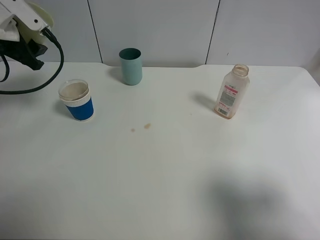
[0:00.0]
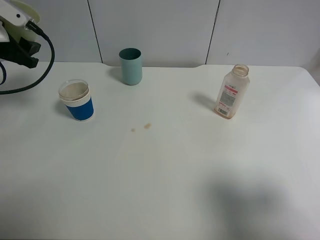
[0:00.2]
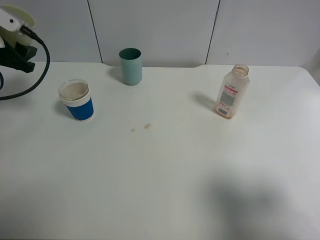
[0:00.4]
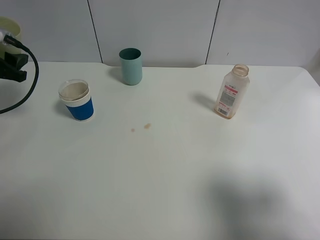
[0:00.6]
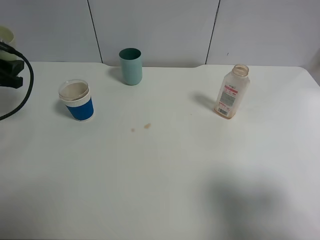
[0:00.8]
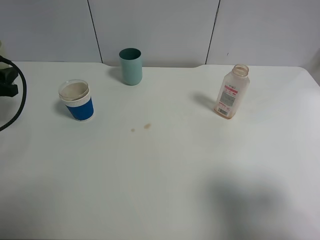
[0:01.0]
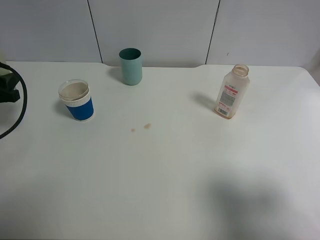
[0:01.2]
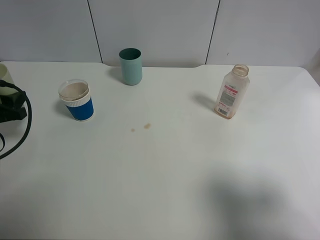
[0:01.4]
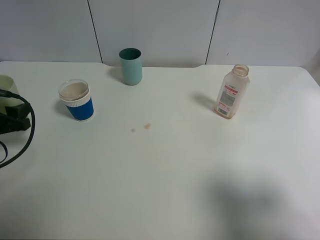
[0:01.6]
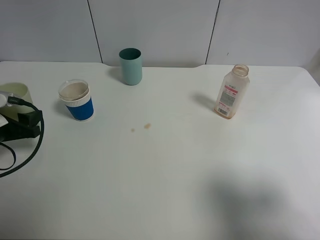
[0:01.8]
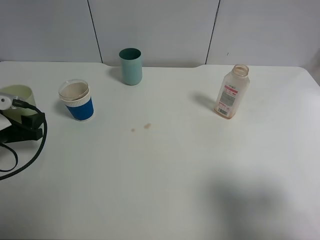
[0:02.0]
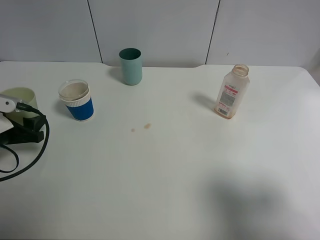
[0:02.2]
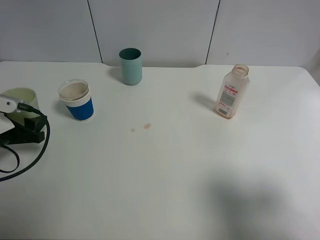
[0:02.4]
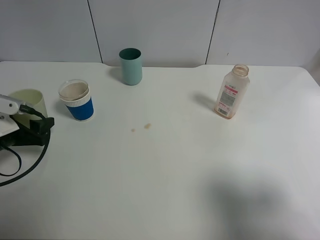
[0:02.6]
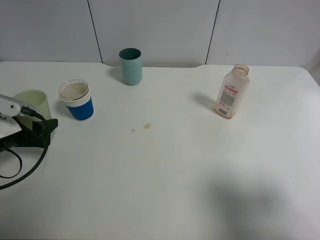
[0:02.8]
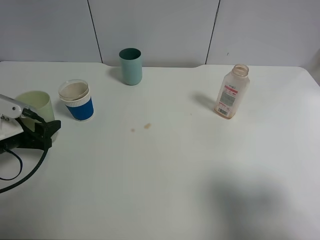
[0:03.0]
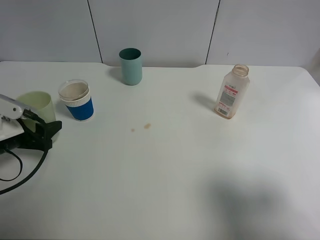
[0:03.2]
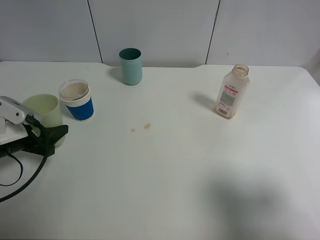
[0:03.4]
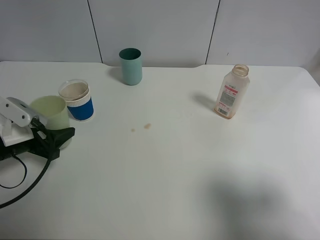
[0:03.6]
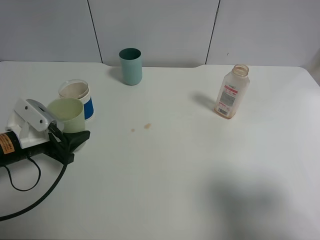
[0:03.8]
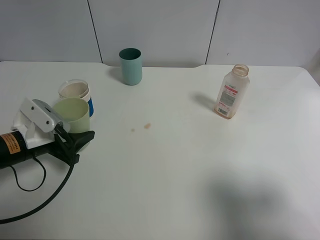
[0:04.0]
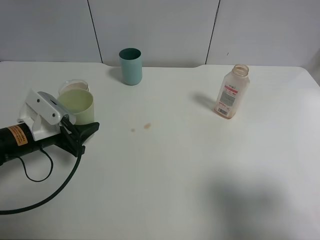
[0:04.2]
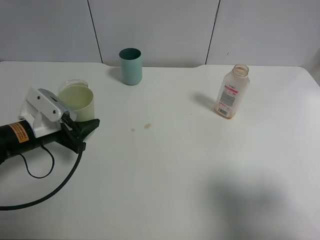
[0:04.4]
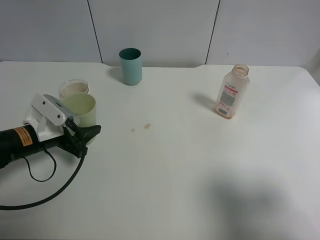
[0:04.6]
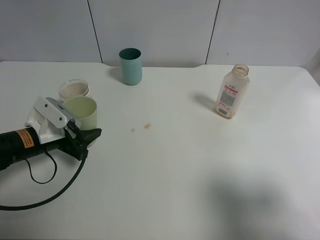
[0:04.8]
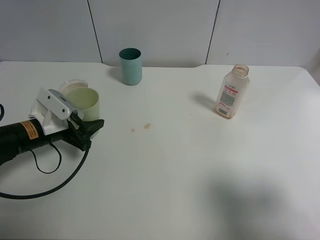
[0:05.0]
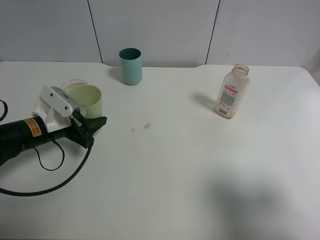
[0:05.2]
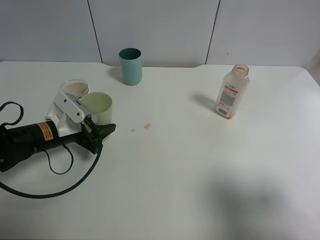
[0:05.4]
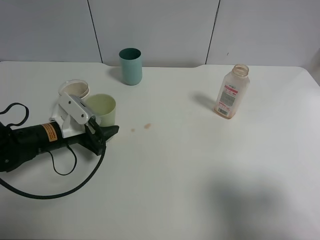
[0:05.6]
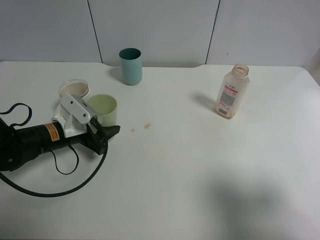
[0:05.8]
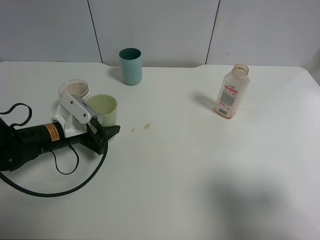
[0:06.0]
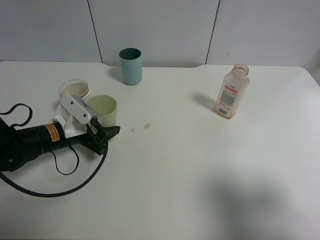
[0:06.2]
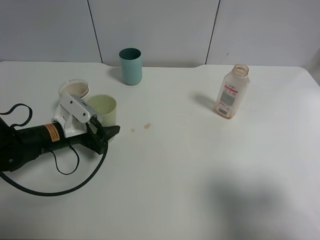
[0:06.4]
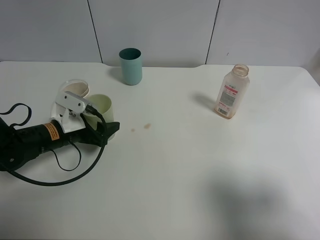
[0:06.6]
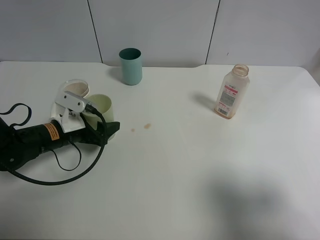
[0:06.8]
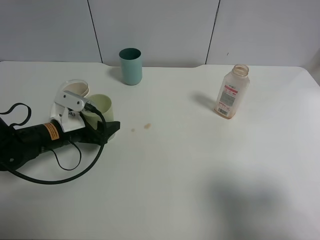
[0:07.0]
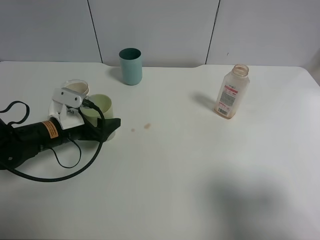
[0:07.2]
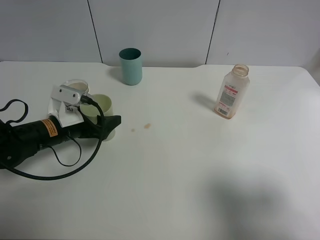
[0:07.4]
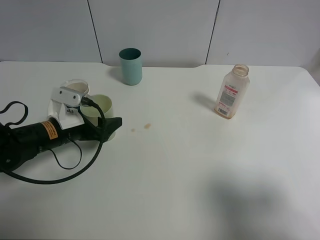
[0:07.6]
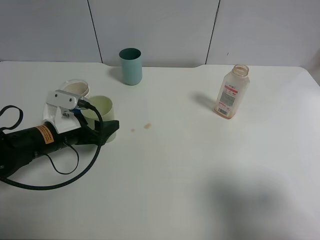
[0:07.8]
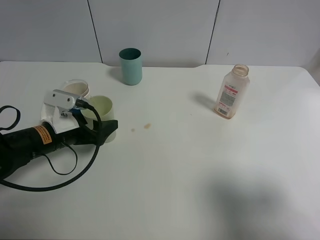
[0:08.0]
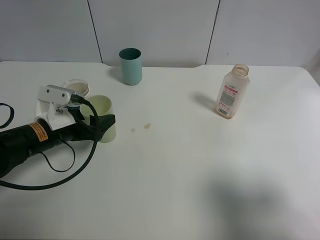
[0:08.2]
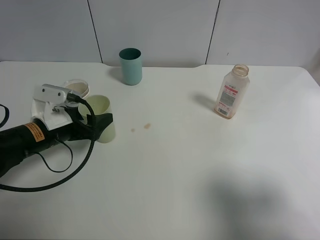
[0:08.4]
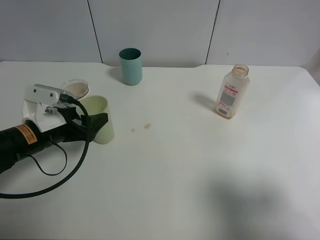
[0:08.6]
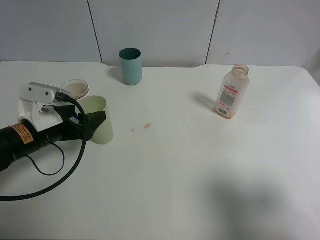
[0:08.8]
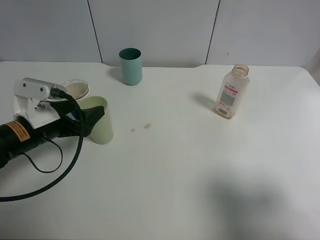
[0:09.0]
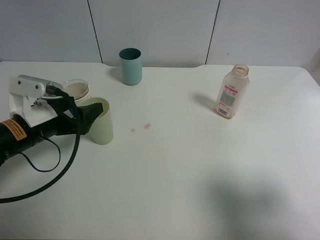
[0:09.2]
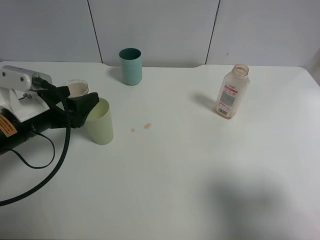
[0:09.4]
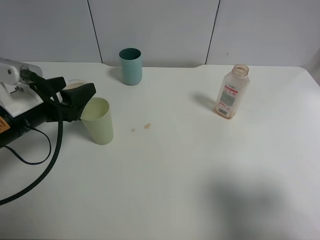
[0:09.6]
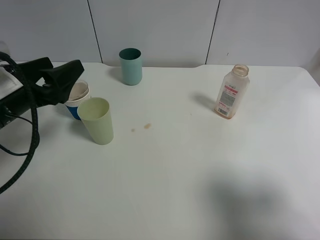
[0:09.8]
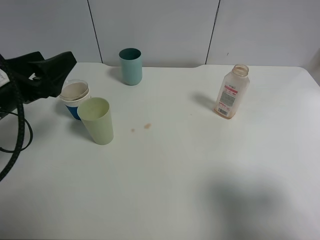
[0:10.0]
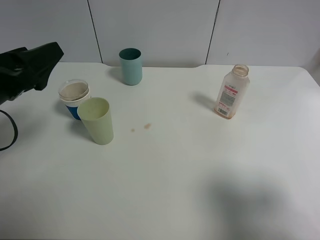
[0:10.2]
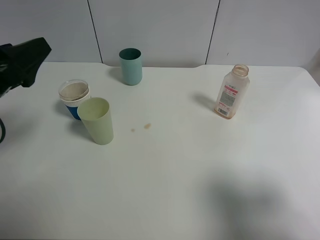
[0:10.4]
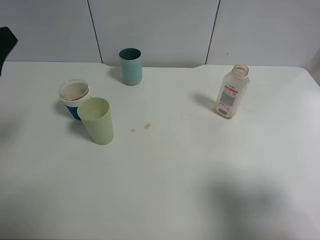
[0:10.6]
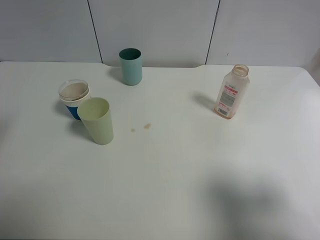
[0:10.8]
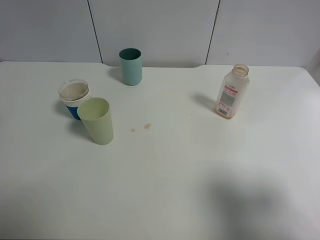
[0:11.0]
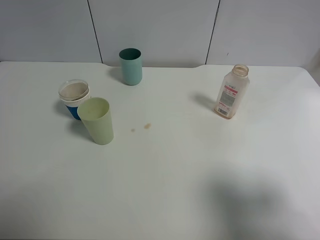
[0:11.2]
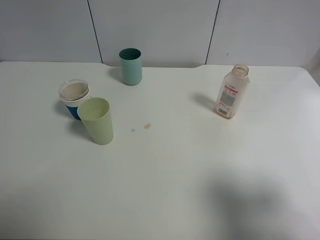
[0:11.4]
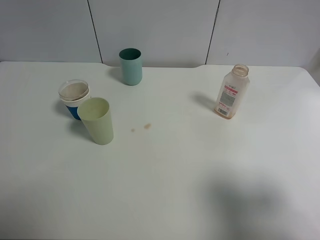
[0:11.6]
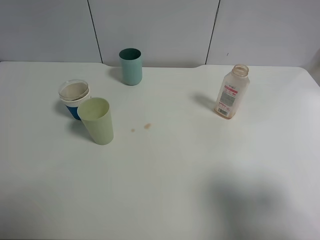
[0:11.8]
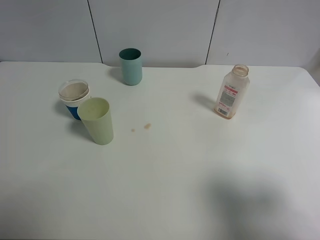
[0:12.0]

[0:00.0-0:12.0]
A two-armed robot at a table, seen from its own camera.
Task of the whole recording: use a clamp to hold the bottle of the drink, pour the beverage into a random cup, then clamp the cup containing the drink and pour the drink into another random cup.
Step, 0:00.0 to 0:09.2: Place the green plastic cup on the table with left gripper.
0:00.0 to 0:01.6: The left gripper goes roughly 20 cm downward and backward.
0:01.6 to 0:03.0: The grippers make only small movements.
0:03.0 to 0:04.4: The left gripper shifts approximately 5 cm to the right.
0:04.4 to 0:06.0: The left gripper shifts by some 5 cm.
0:06.0 to 0:07.6: The left gripper opens up.
0:07.6 to 0:09.0: The left gripper ends up about 5 cm from where it was.
0:09.0 to 0:10.4: The left gripper moves upward, roughly 10 cm.
0:10.4 to 0:12.0: The left gripper goes approximately 15 cm backward, upward and to the left.

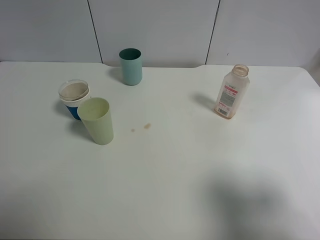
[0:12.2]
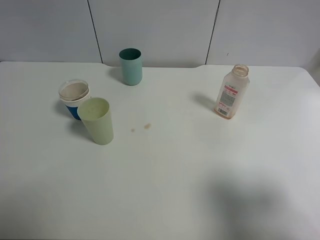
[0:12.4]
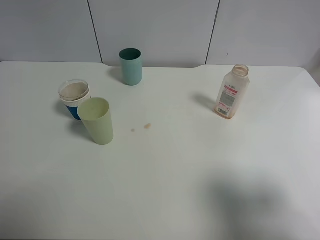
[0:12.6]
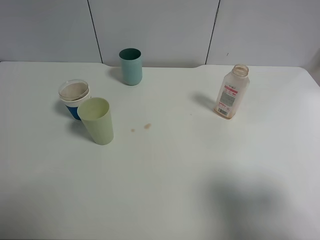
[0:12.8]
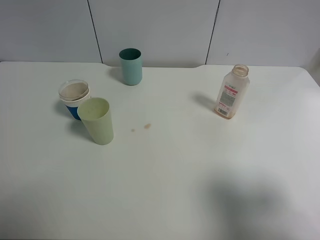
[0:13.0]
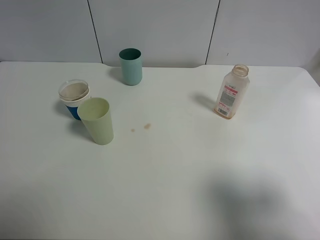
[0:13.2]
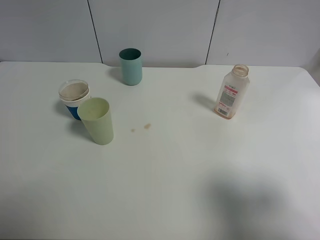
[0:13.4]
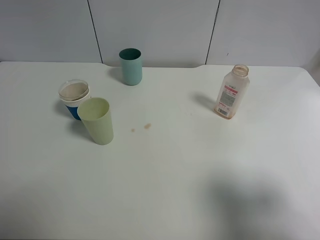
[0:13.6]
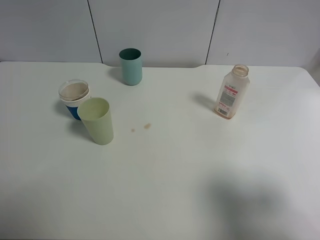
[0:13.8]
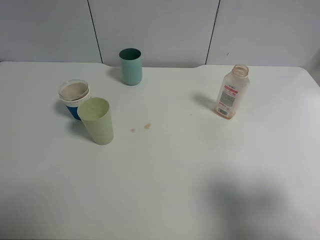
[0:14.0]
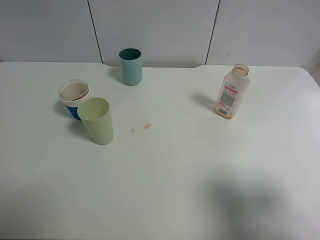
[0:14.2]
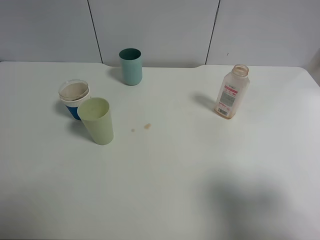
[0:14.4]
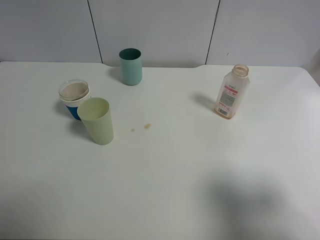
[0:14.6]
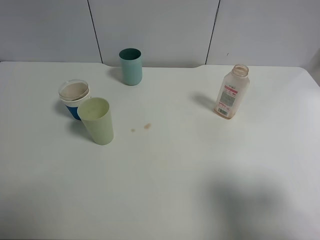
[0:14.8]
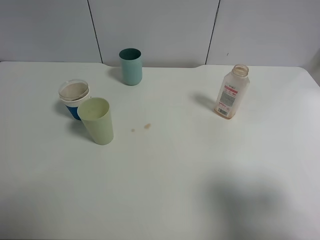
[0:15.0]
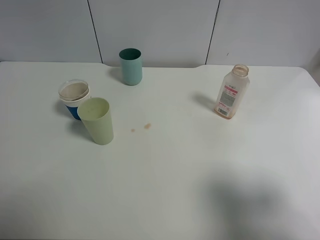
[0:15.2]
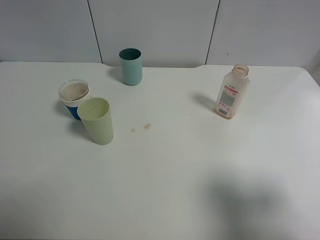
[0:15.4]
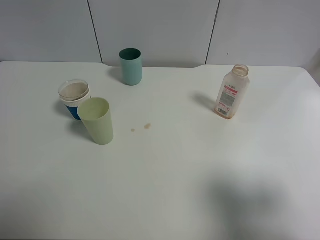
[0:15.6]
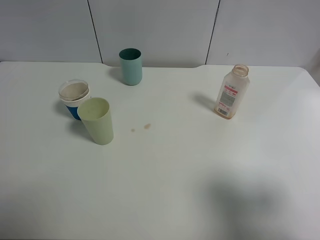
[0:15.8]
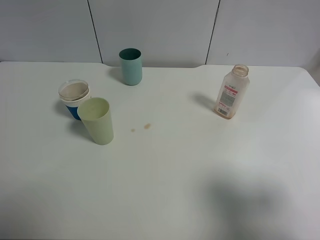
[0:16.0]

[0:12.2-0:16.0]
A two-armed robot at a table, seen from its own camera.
Task of the whole recording: use a clamp to hold the bottle of the drink, pour the beverage into a random cup, then clamp the cup containing the drink and pour the drink into another random cup.
0:13.4 to 0:16.0: The two grippers keep their place.

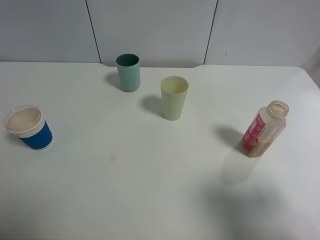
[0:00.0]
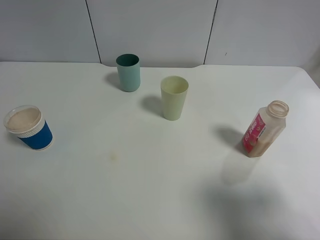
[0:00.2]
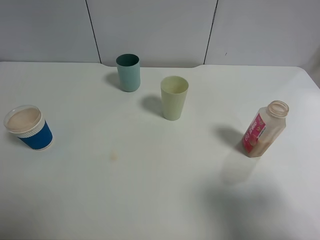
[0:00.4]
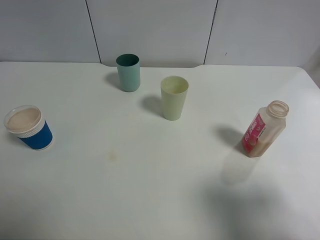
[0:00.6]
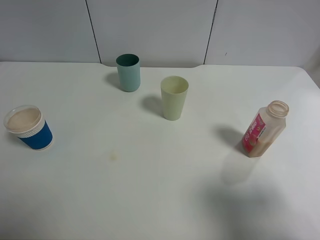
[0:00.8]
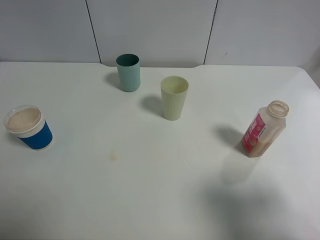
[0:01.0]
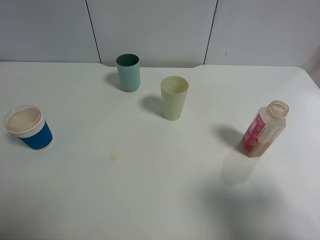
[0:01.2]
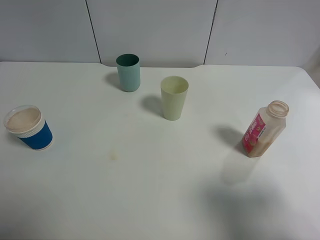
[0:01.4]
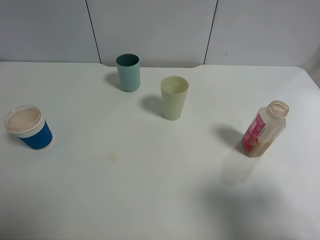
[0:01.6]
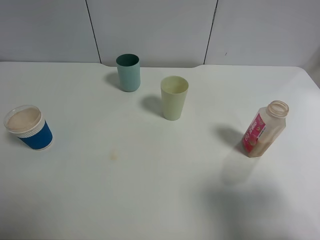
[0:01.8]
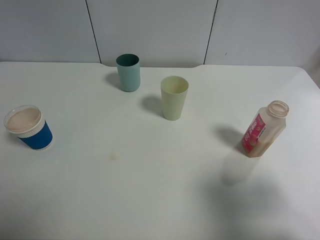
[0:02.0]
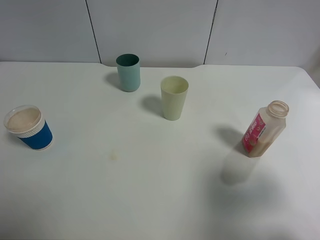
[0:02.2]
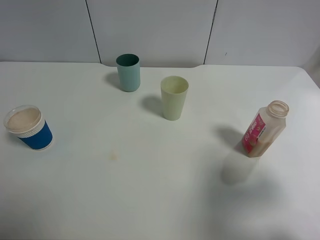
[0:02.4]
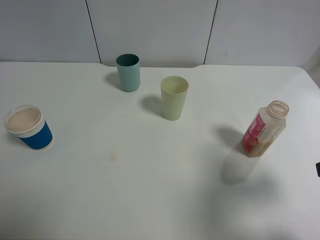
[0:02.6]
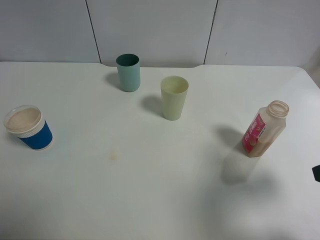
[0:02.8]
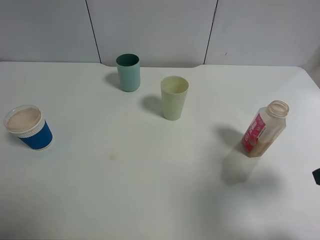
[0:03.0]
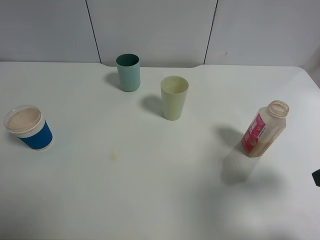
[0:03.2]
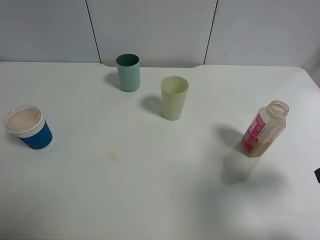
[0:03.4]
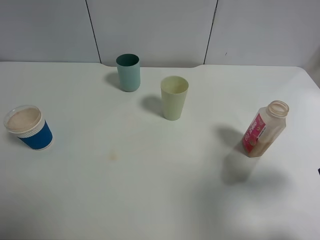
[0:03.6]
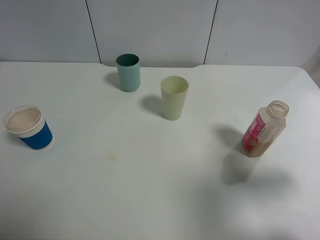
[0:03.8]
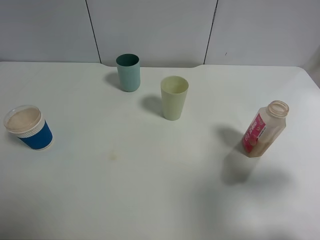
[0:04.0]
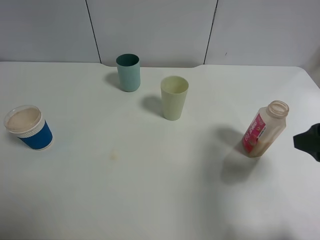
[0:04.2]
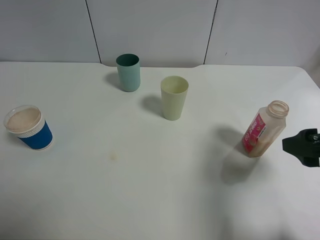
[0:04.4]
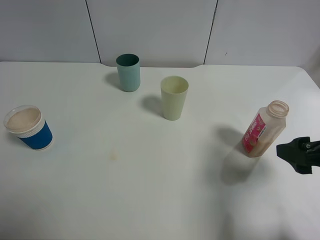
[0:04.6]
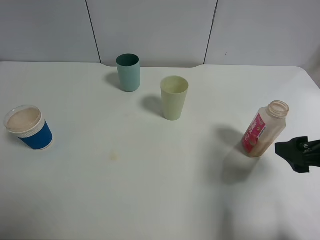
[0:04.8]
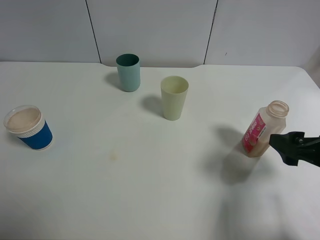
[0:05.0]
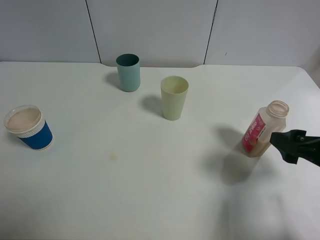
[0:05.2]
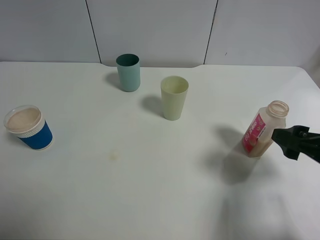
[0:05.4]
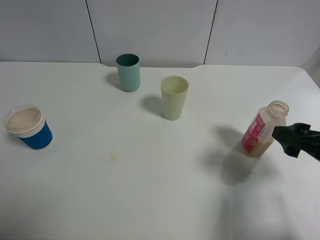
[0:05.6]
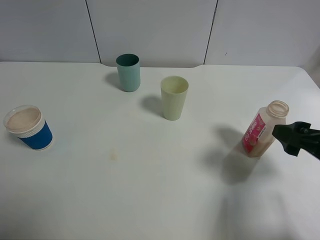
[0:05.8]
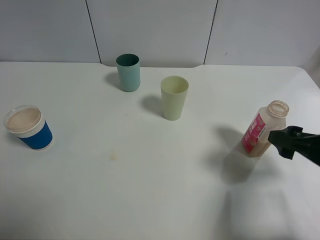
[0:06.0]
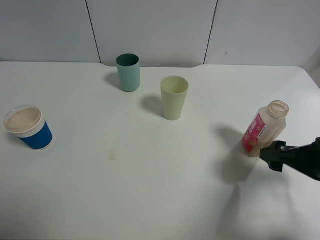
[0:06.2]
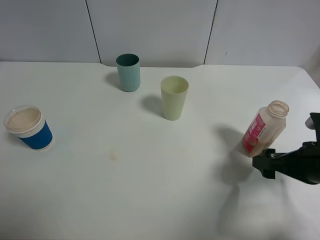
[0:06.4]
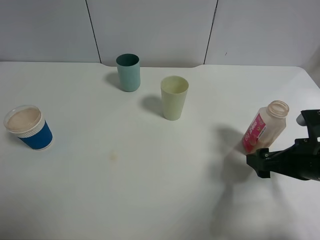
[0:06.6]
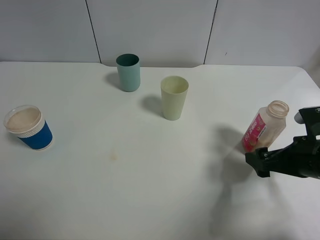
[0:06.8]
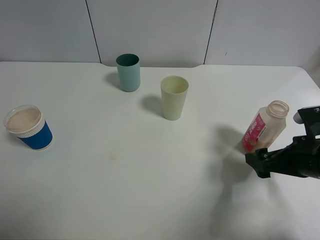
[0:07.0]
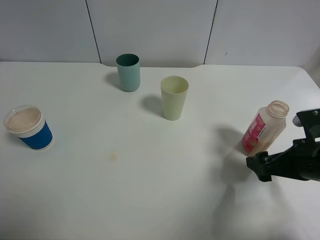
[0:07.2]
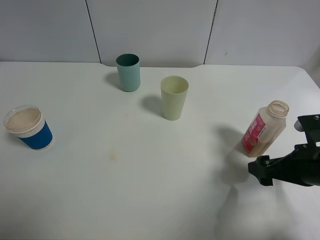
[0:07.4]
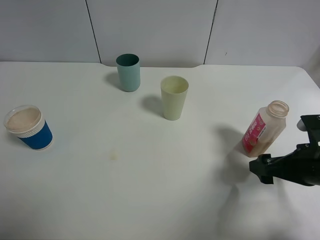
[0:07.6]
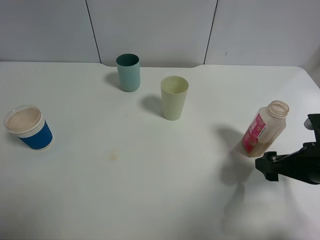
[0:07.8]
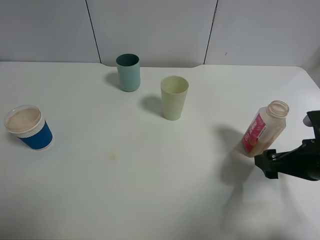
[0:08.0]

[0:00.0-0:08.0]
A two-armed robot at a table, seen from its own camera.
Task of the whole recording: use a clamp to hold the bottle of the drink, pour the beverage into a random cup, then clamp the cup containing the drink and pour the drink into another random cup.
0:00.0 to 0:01.6: Both grippers stay put.
0:01.6 to 0:03.2: The right gripper is displaced forward by approximately 10 cm.
0:03.2 to 0:04.8: The grippers move only a little.
0:04.8 to 0:06.4: The right gripper is displaced downward by approximately 5 cm.
0:06.4 to 0:08.0: The grippers make only small movements.
